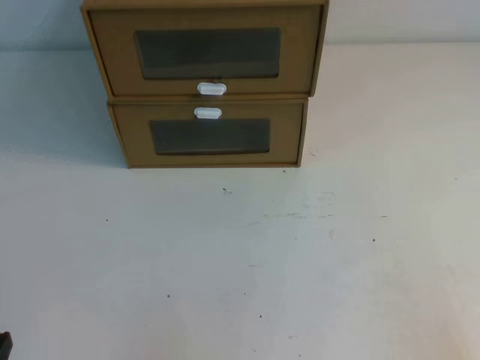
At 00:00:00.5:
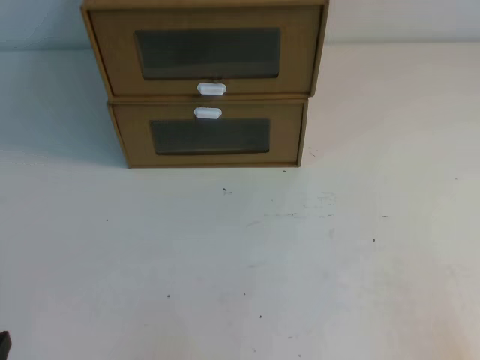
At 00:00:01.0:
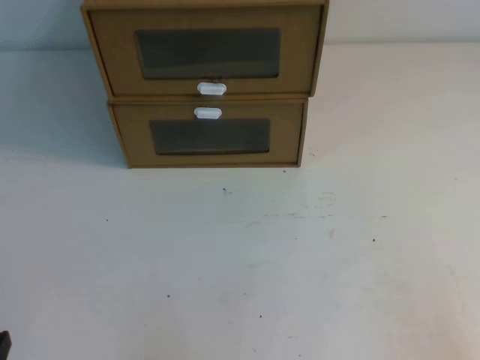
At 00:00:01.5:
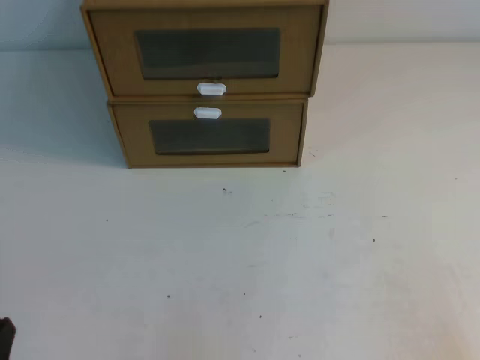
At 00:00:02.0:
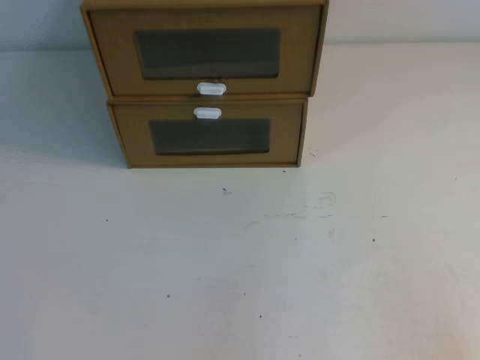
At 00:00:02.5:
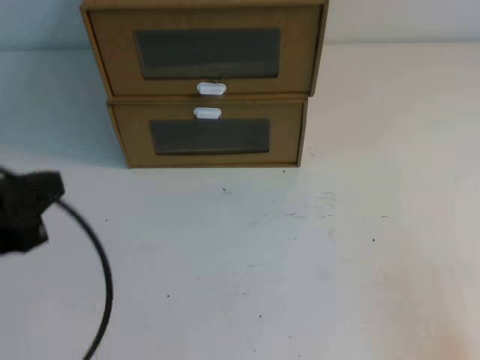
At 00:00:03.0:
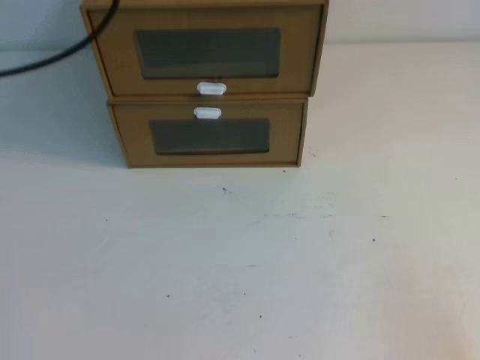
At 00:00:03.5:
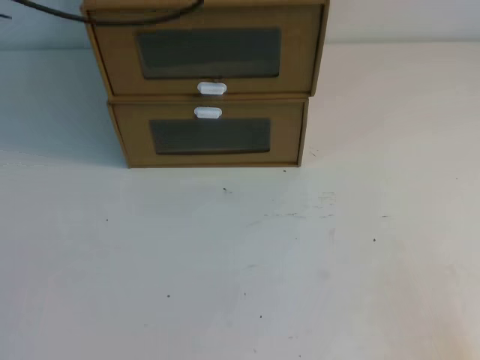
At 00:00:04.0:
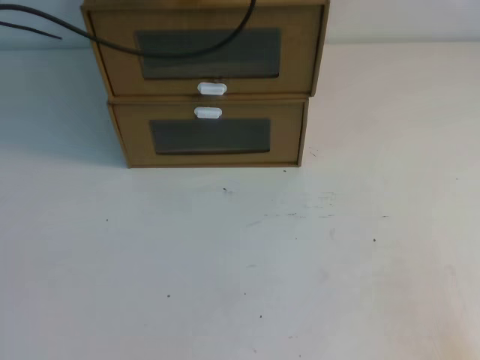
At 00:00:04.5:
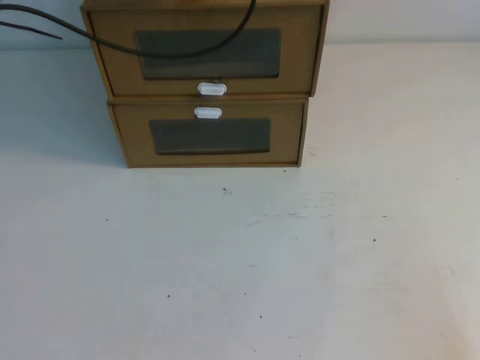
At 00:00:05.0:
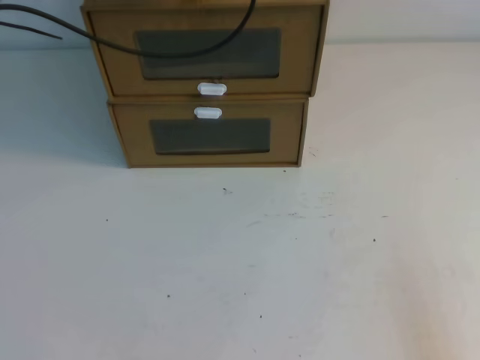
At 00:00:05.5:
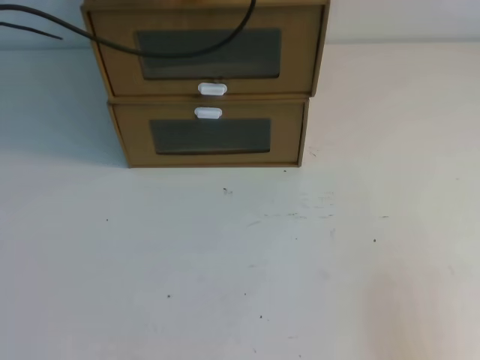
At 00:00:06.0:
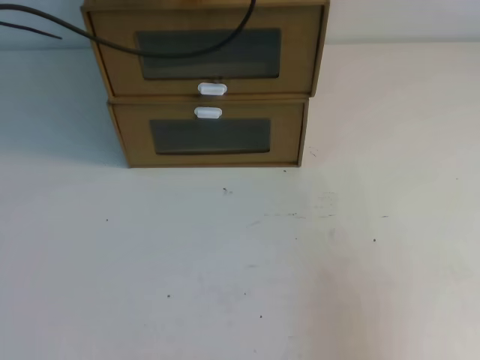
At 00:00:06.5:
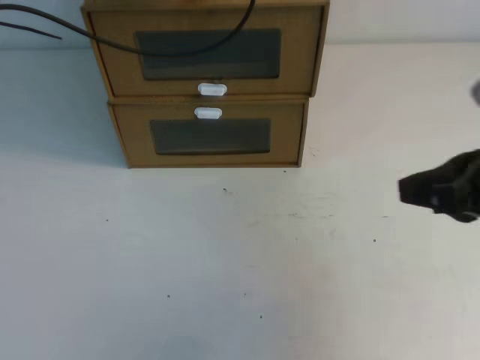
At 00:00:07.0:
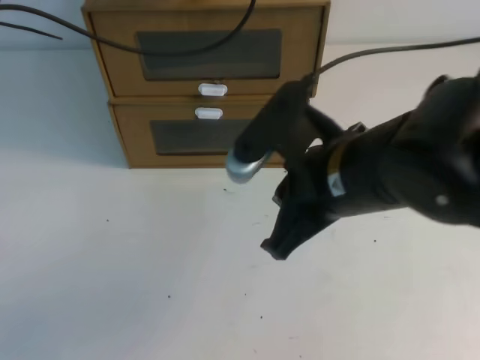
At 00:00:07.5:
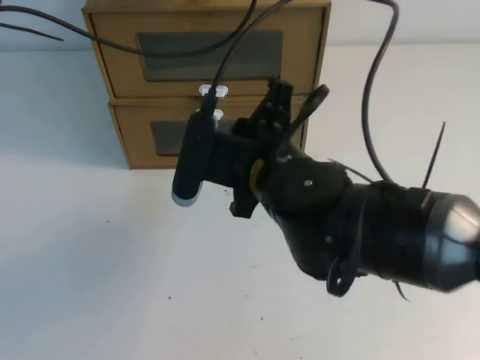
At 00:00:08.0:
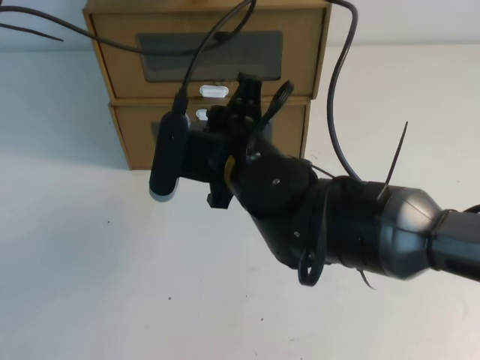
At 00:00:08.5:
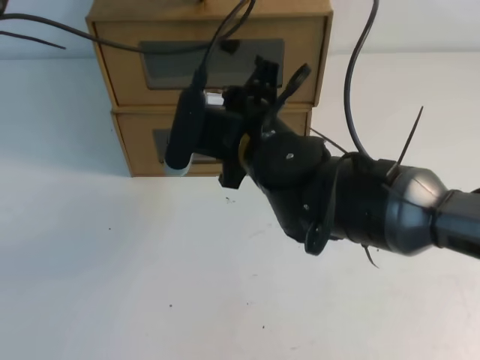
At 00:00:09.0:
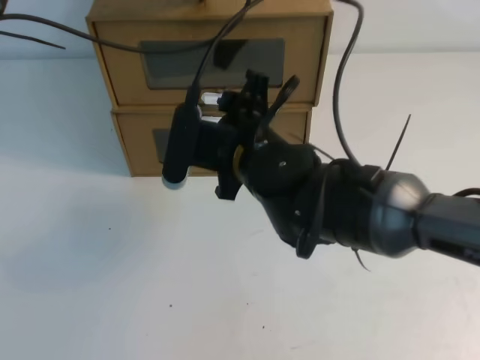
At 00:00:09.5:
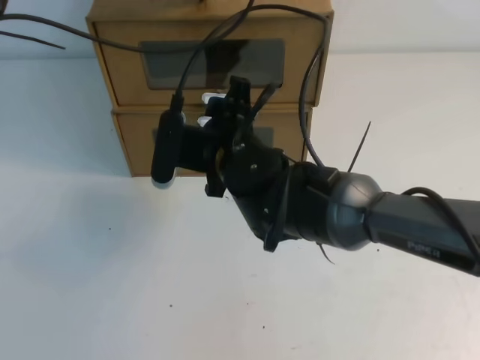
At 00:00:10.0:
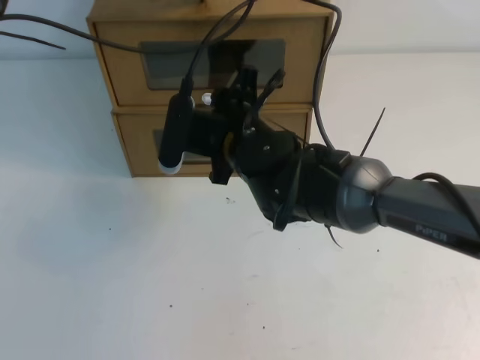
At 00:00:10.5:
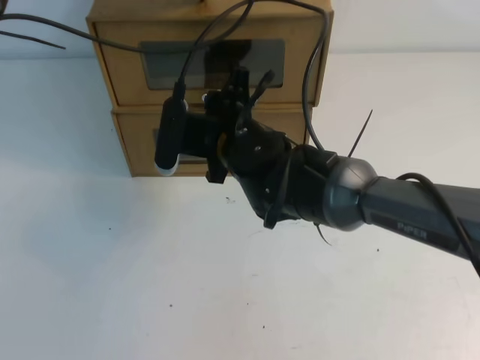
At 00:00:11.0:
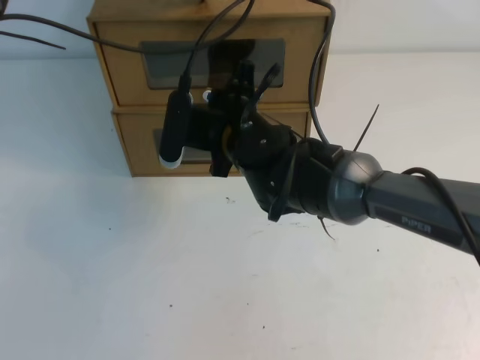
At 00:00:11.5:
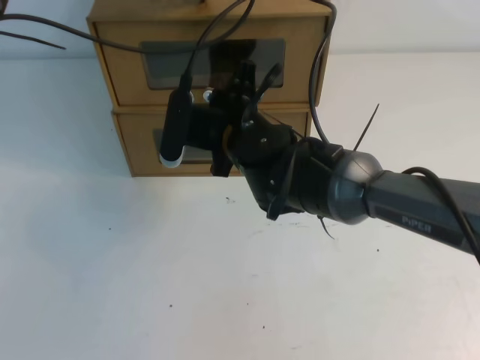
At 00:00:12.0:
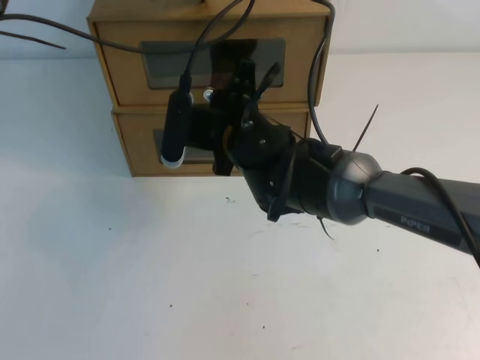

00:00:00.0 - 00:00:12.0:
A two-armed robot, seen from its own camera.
Task of the whole recording: open the shoebox on the table.
00:00:02.0 - 00:00:04.0: The left gripper shifts roughly 40 cm forward and upward.
00:00:04.0 - 00:00:06.0: The right gripper travels upward and forward by approximately 15 cm.
00:00:06.0 - 00:00:08.0: The right gripper travels to the left and forward by roughly 35 cm, and opens up.
00:00:08.0 - 00:00:10.0: The right gripper goes approximately 5 cm forward, and opens its fingers.
00:00:10.0 - 00:00:12.0: The right gripper closes.

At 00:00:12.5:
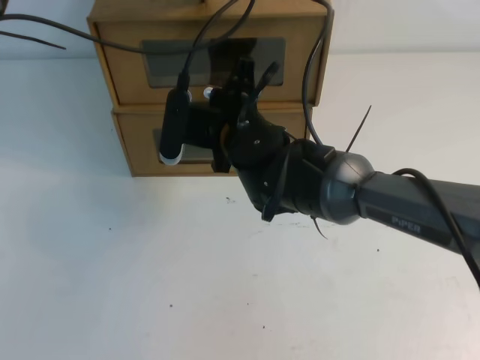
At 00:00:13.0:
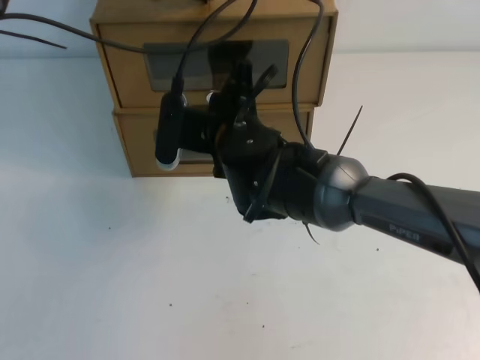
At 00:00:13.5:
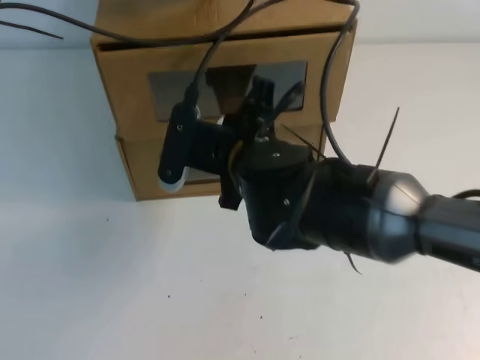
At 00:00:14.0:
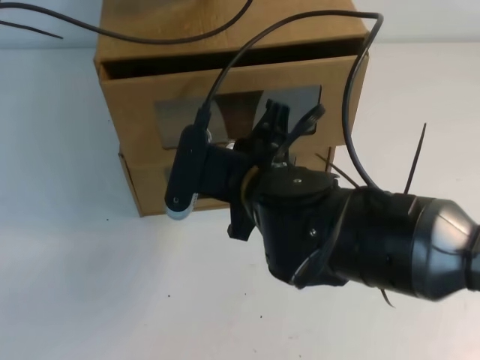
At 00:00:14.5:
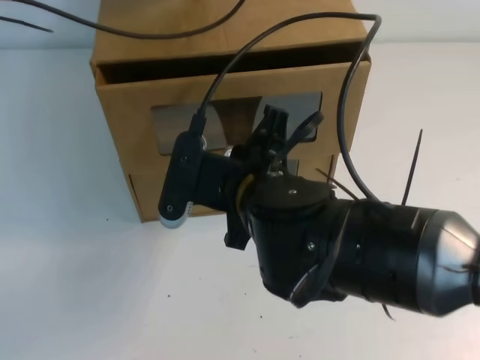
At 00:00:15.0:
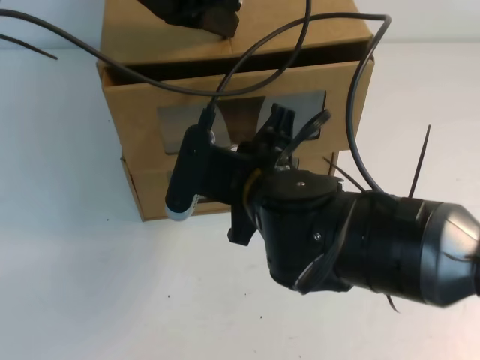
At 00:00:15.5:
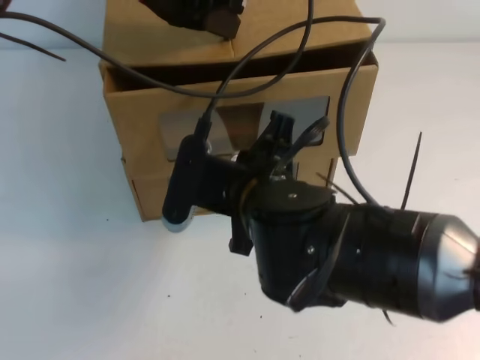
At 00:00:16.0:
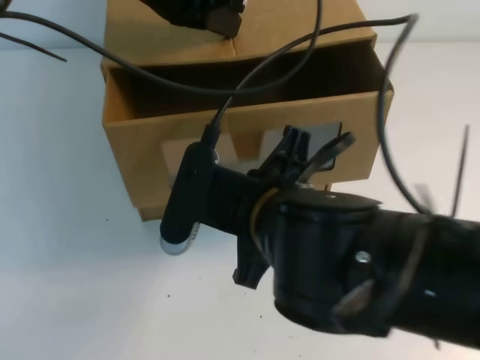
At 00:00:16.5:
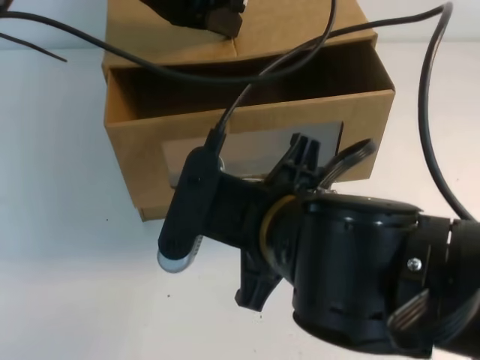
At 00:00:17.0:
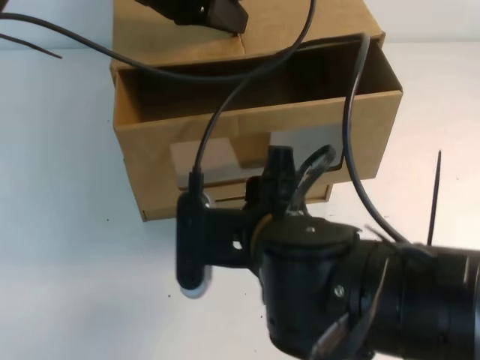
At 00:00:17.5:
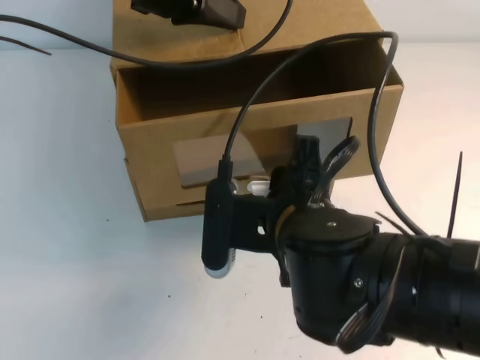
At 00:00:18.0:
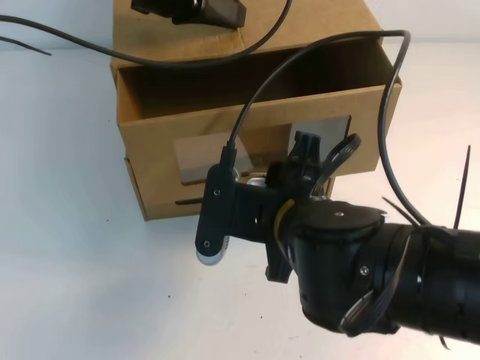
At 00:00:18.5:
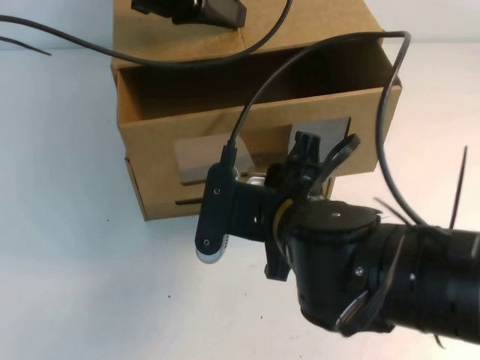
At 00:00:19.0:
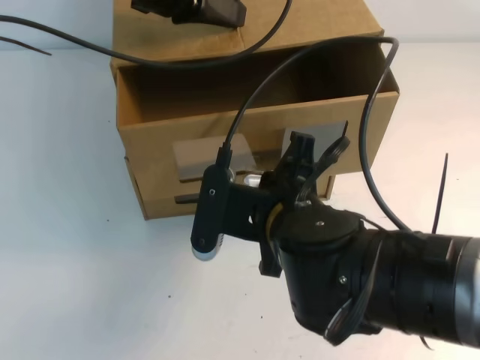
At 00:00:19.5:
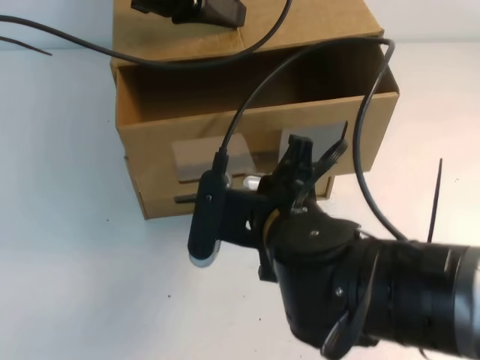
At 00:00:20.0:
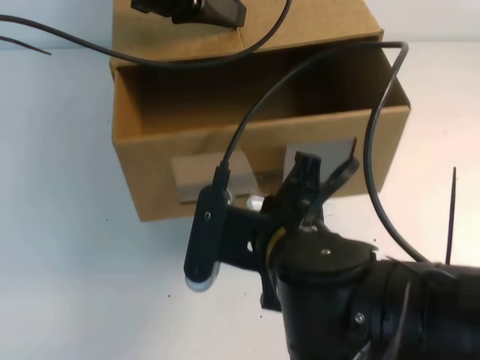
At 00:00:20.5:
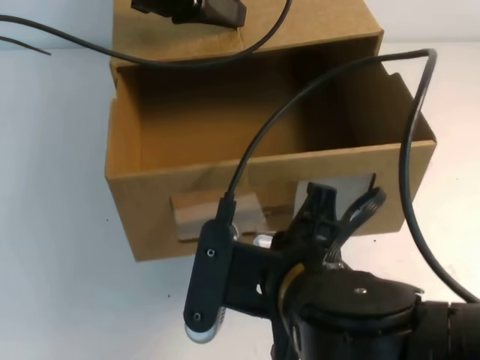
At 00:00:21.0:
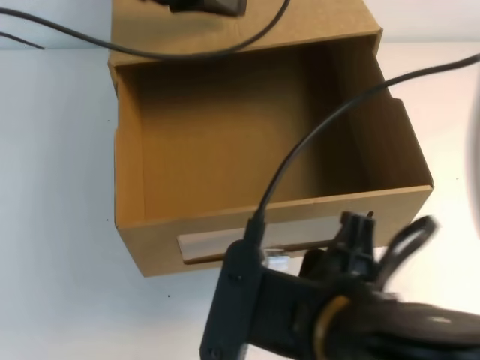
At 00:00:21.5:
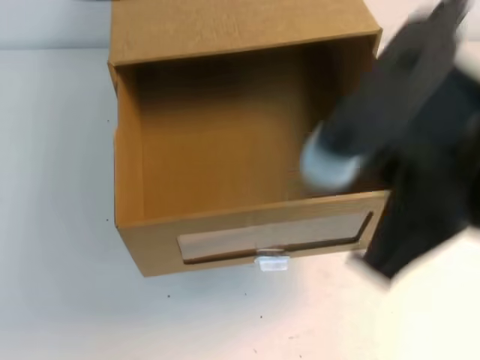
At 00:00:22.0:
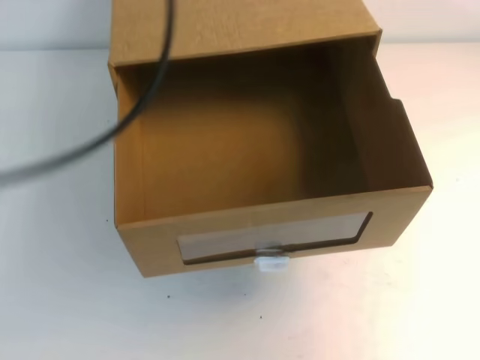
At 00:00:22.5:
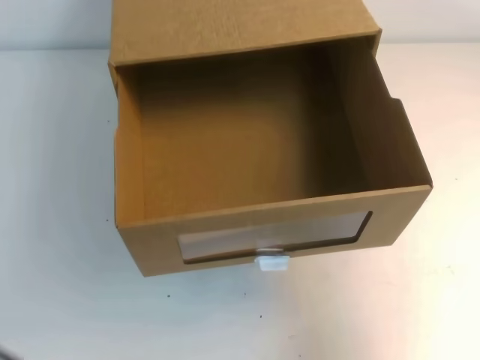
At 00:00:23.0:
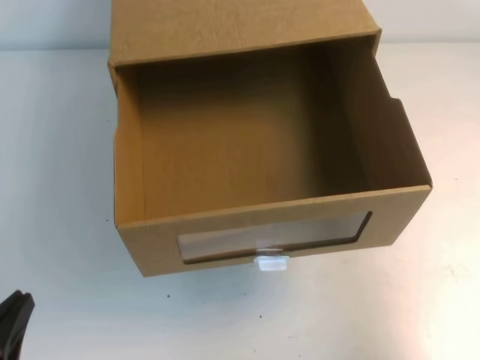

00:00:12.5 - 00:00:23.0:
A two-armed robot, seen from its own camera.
Task of the whole recording: open the shoebox on the table.
00:00:12.5 - 00:00:14.5: The right gripper is displaced backward by approximately 15 cm.
00:00:14.5 - 00:00:16.5: The left gripper ends up about 5 cm from where it was, while the right gripper goes approximately 5 cm backward.
00:00:16.5 - 00:00:19.0: The right gripper shifts roughly 10 cm downward and forward, and opens and closes again.
00:00:19.0 - 00:00:21.0: The right gripper goes some 15 cm backward and upward, and opens its fingers.
00:00:21.0 - 00:00:23.0: The right gripper moves to the right, about 25 cm, and closes, while the left gripper shifts about 40 cm backward, downward and to the left.

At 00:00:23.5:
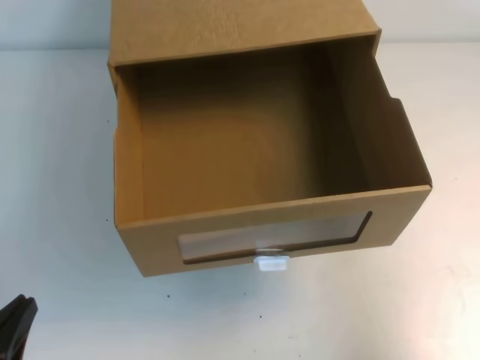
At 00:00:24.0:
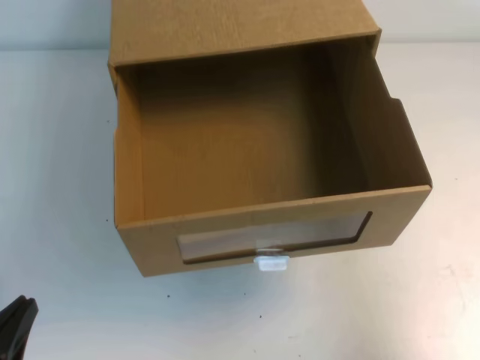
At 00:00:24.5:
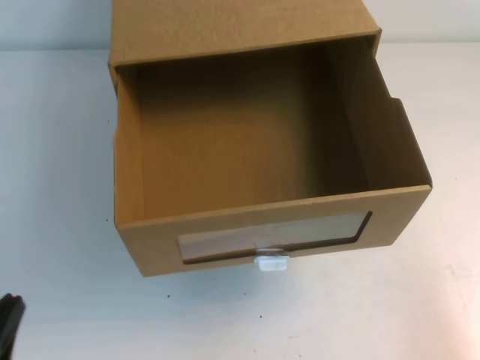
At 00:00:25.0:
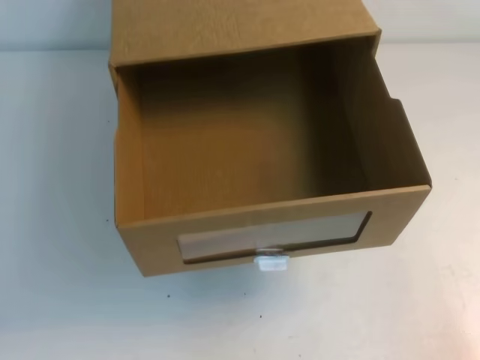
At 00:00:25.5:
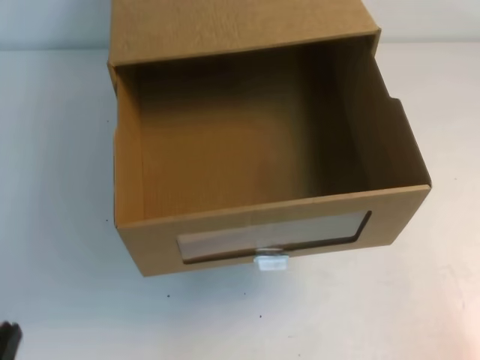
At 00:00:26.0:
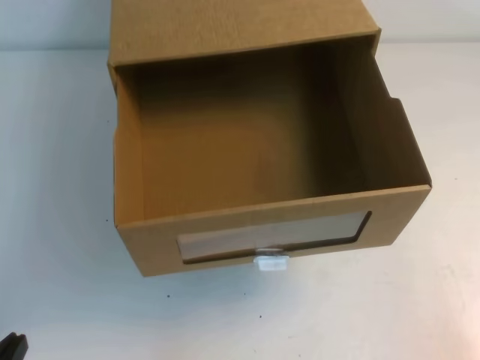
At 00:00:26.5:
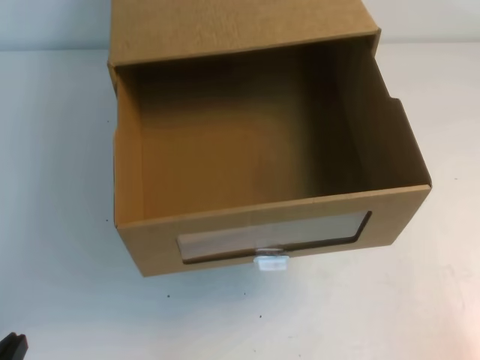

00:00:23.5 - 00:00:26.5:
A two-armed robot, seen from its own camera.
Task of the whole recording: open the shoebox on the table.
Step, 00:00:23.5 - 00:00:26.5: Open the shoe box.
00:00:23.5 - 00:00:25.0: The right gripper goes some 15 cm downward and backward.
